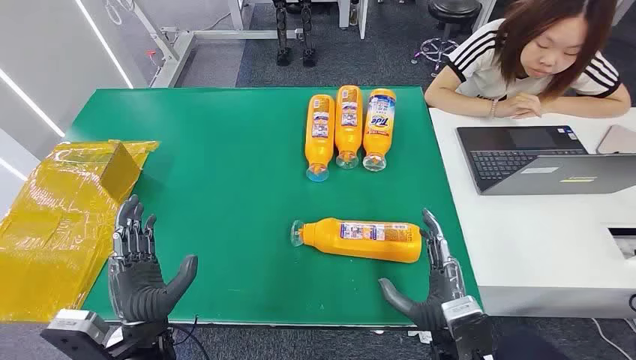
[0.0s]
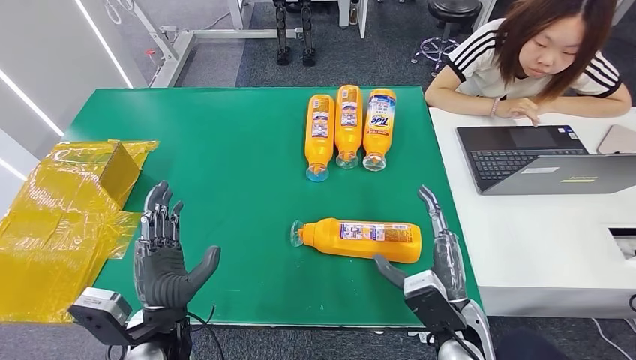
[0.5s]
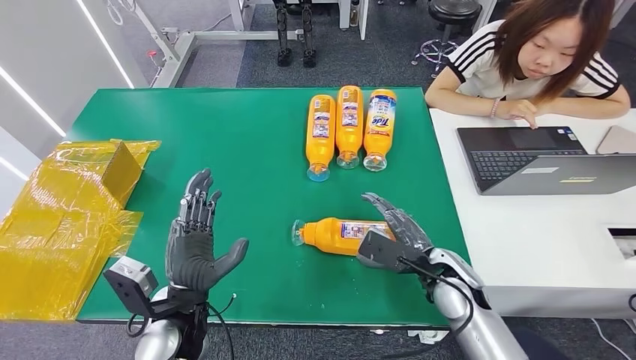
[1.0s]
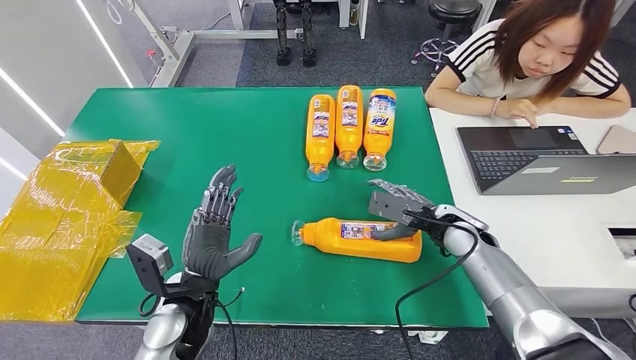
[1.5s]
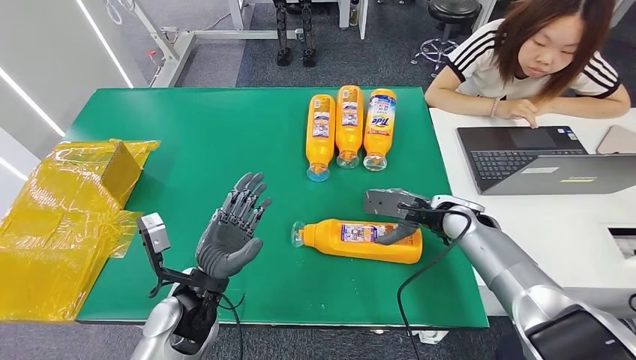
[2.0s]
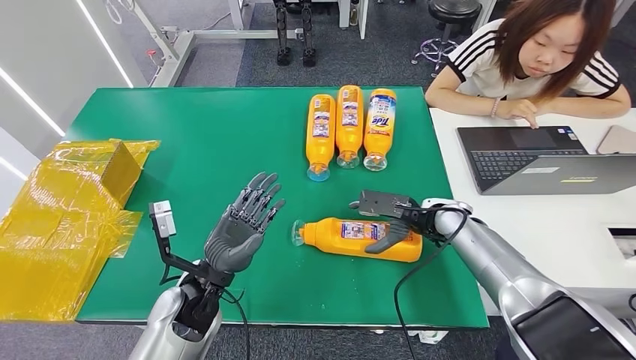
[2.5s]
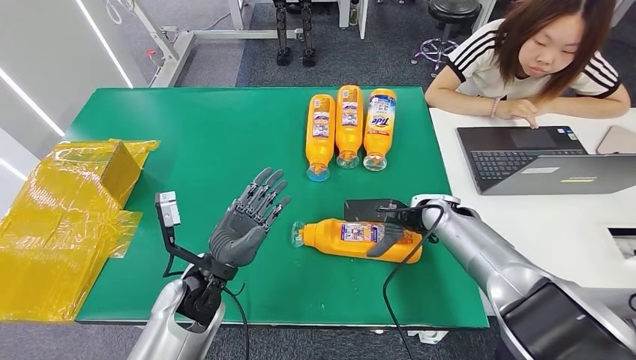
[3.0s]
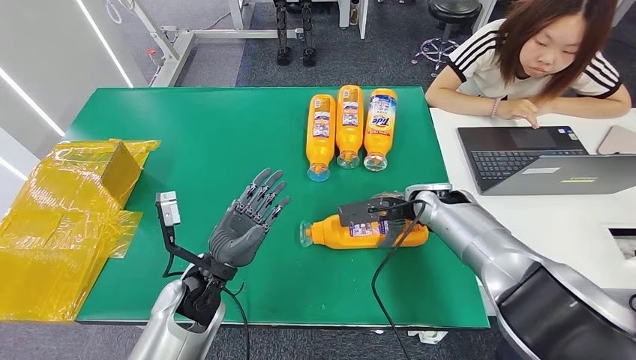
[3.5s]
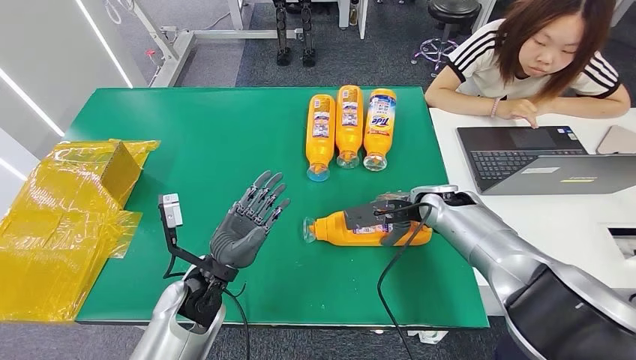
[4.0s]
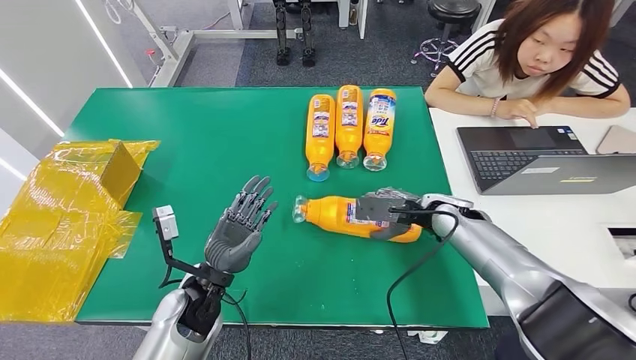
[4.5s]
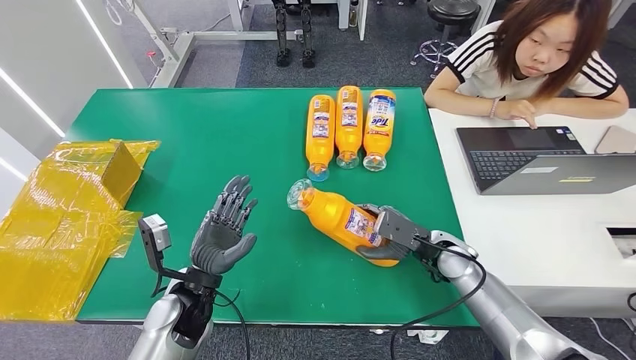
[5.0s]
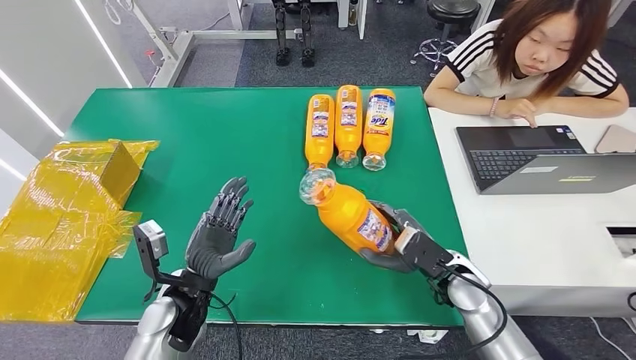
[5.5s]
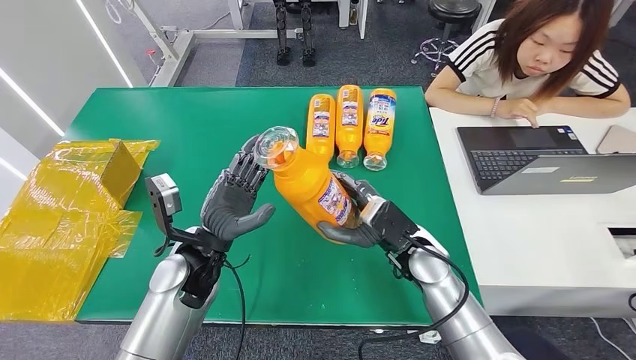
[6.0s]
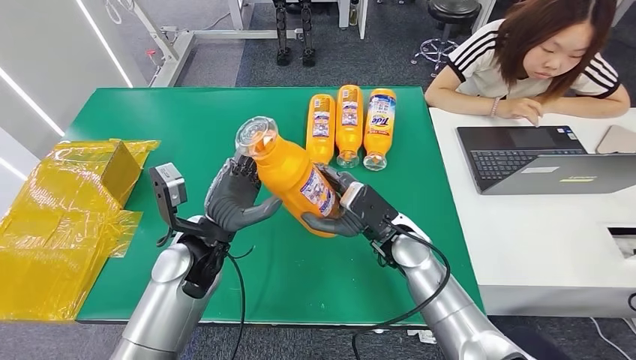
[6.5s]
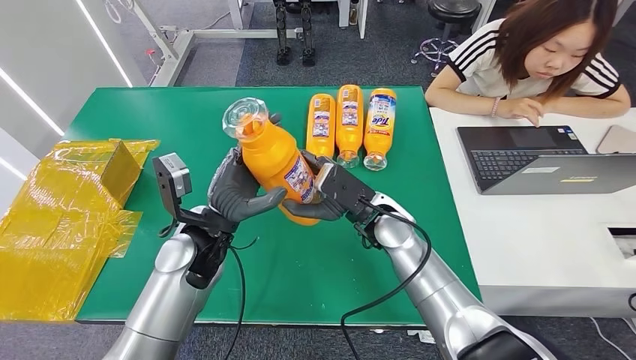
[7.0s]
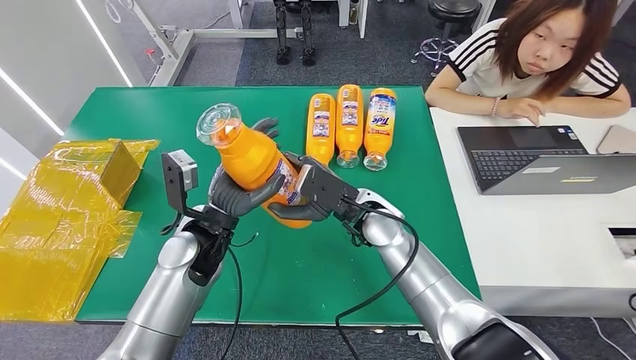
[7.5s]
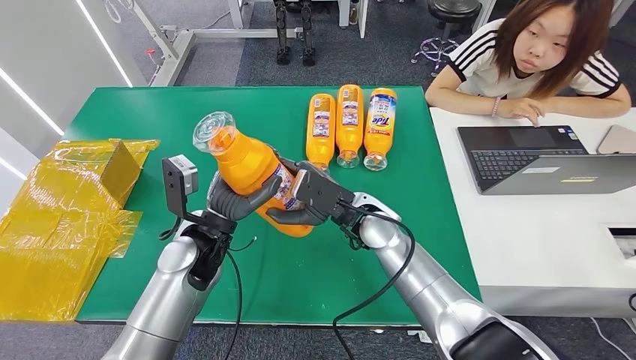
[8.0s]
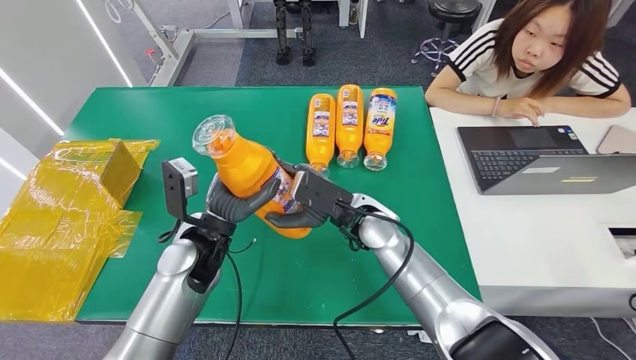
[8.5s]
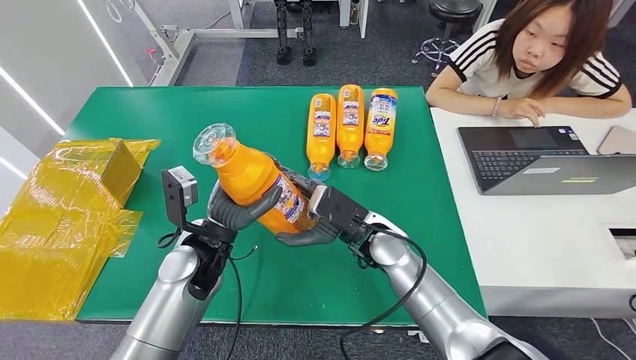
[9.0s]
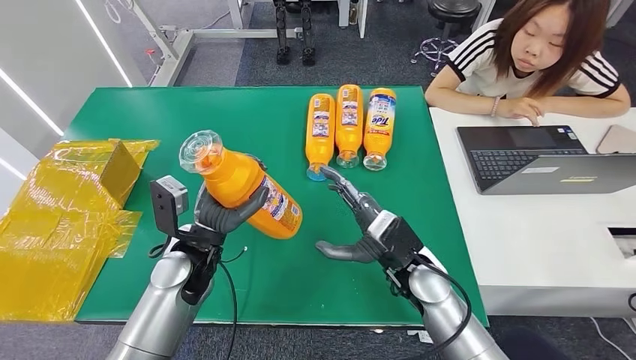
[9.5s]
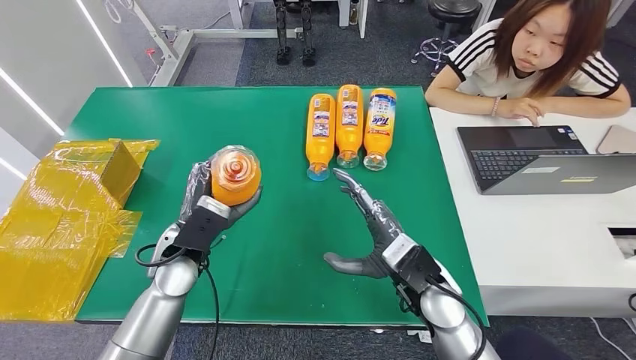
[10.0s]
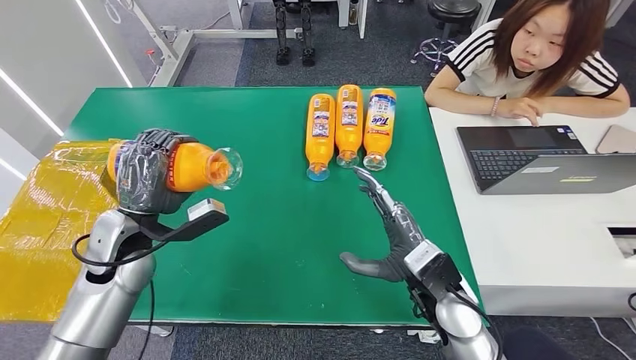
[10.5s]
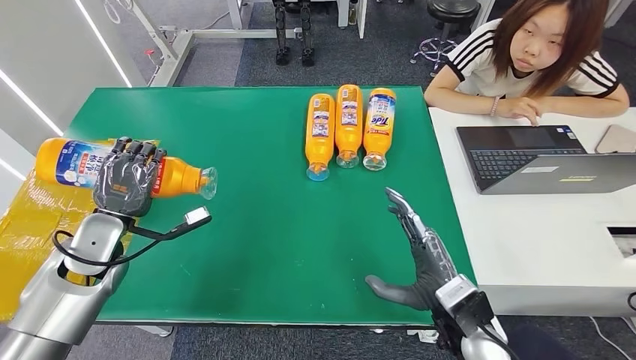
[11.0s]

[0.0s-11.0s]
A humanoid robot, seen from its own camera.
Step, 0.0s to 6.0s: Pick up the bottle from the table.
2.0s to 3.5s: The right hand shifts by roughly 5 cm.
3.5s to 5.5s: The right hand travels backward and downward by roughly 15 cm.
5.5s to 7.5s: The right hand heads to the left, upward and forward, covering about 20 cm, while the left hand shifts some 10 cm forward and upward.
7.5s to 9.0s: The hands stay close to where they were, moving slightly.

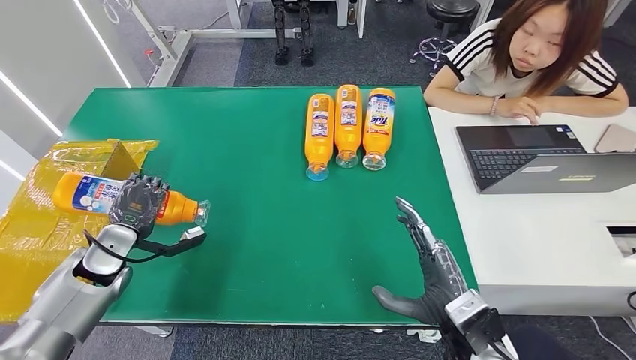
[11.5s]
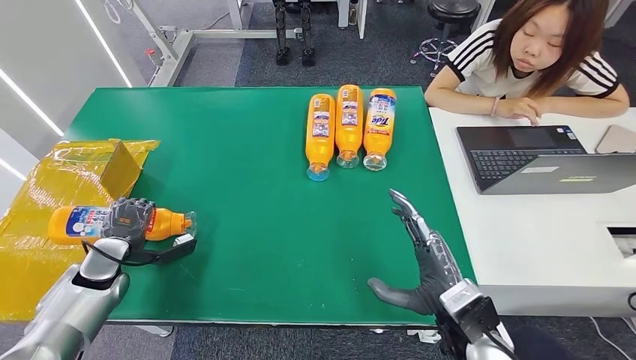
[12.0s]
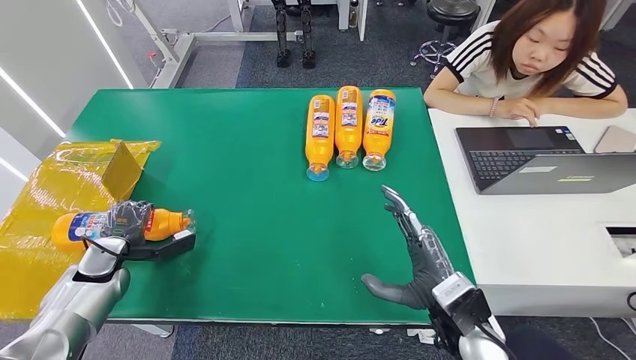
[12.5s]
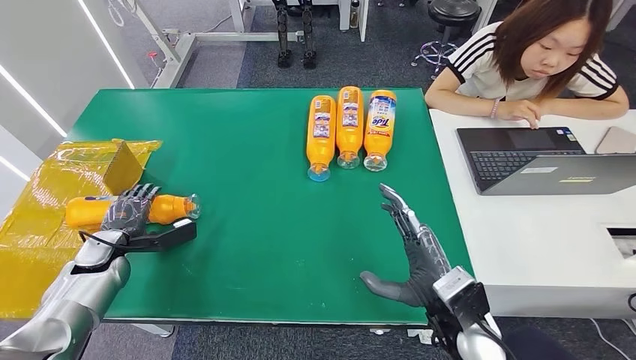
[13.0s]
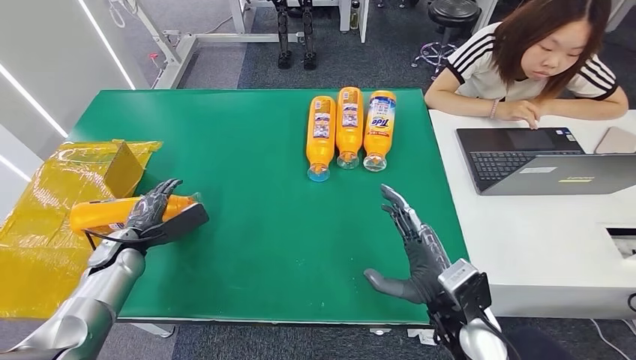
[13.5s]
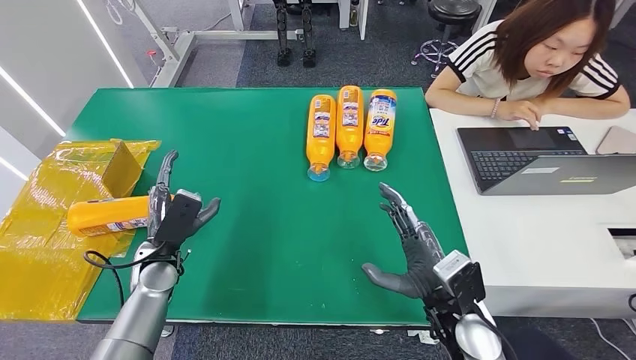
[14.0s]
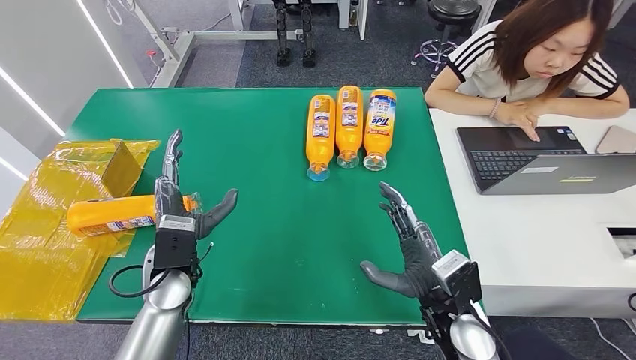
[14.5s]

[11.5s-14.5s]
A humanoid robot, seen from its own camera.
Step, 11.5s to 14.5s: Turn the bottle to the front side.
13.0s to 14.5s: The left hand shifts some 20 cm to the right.
